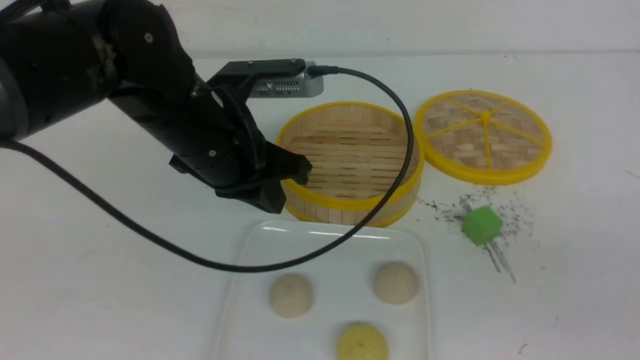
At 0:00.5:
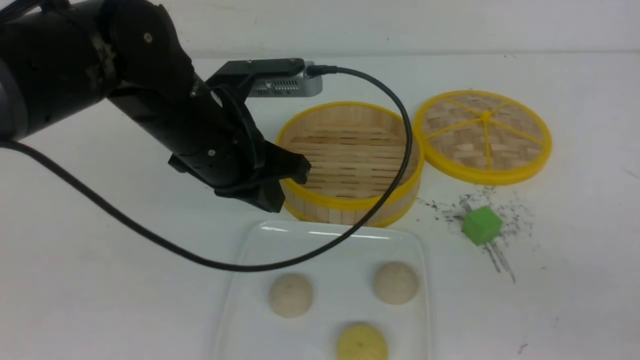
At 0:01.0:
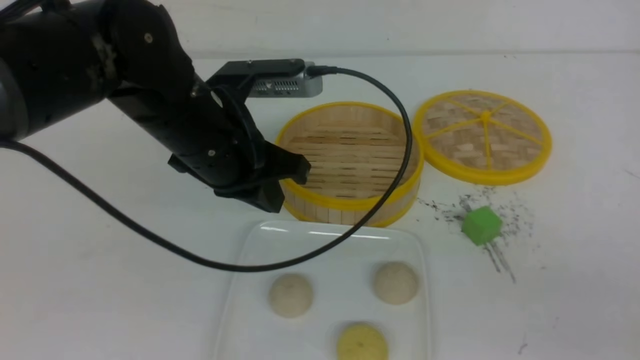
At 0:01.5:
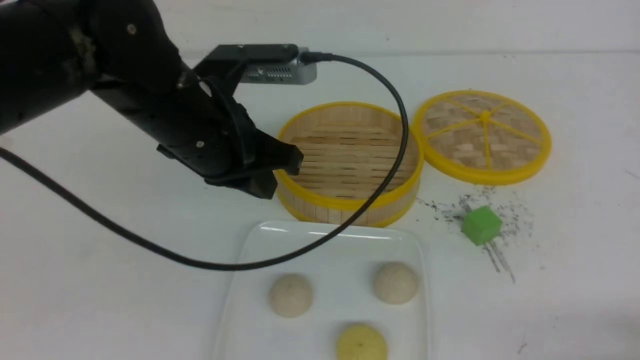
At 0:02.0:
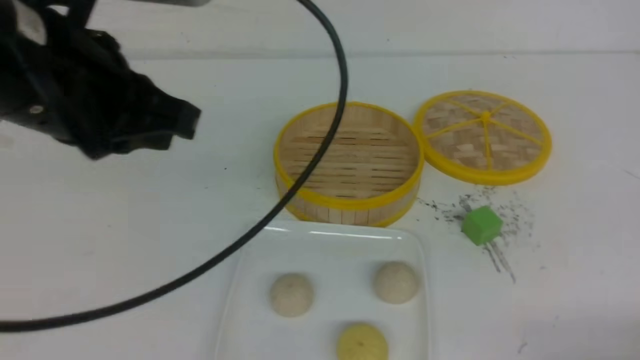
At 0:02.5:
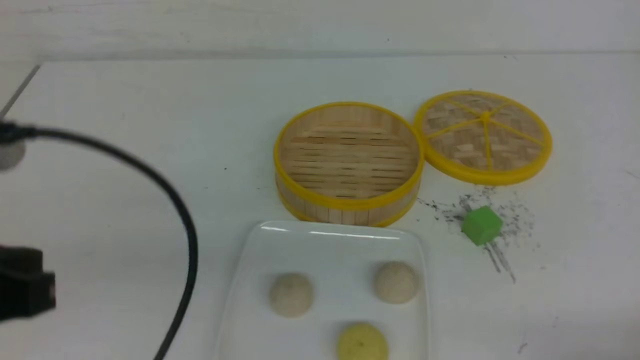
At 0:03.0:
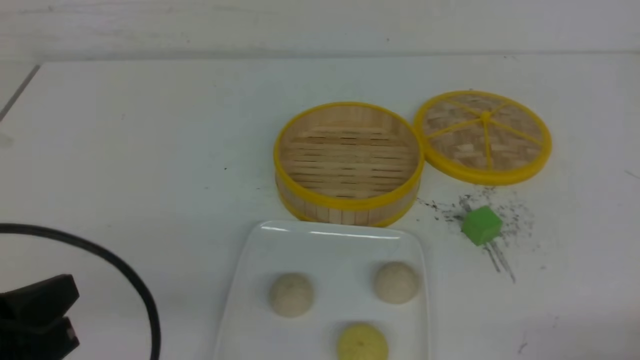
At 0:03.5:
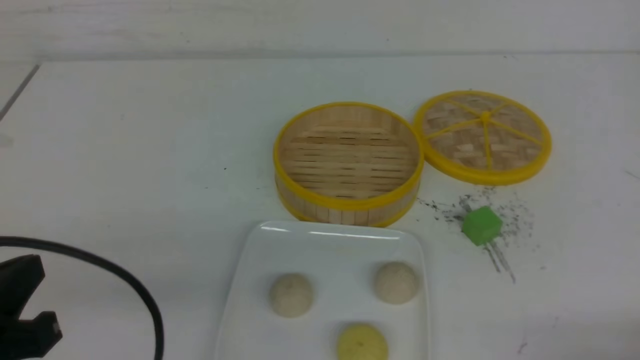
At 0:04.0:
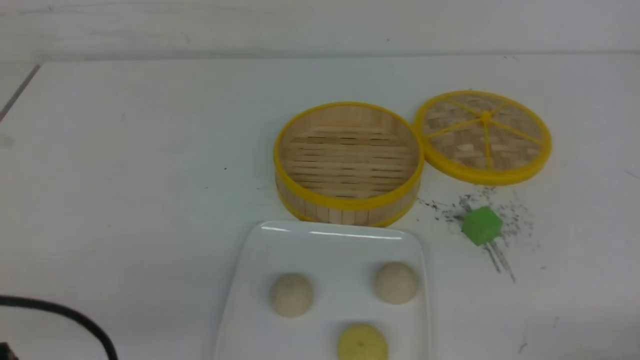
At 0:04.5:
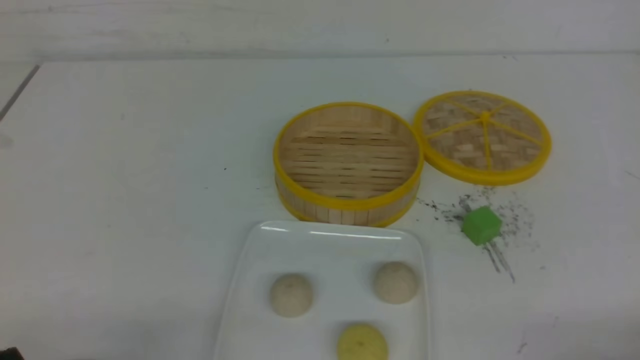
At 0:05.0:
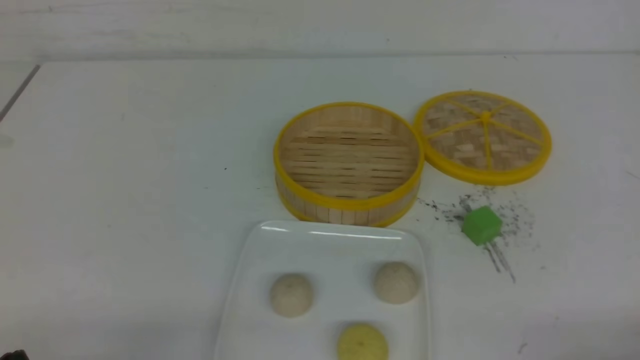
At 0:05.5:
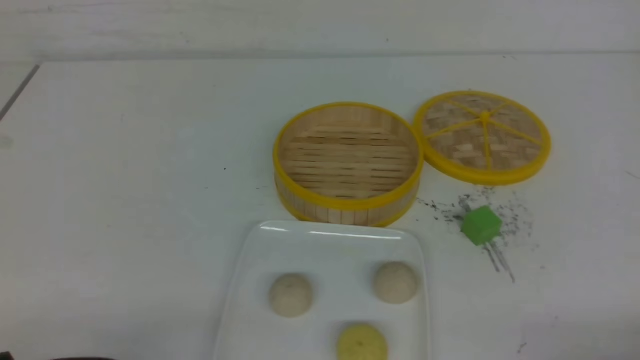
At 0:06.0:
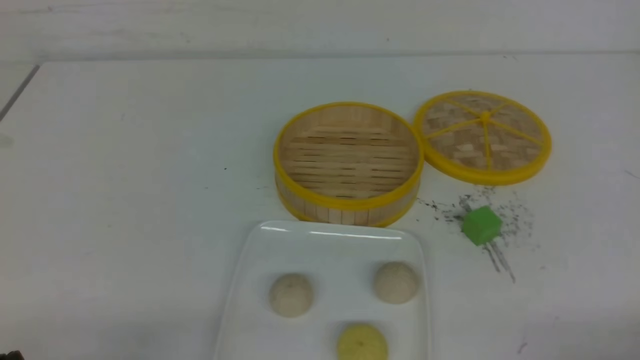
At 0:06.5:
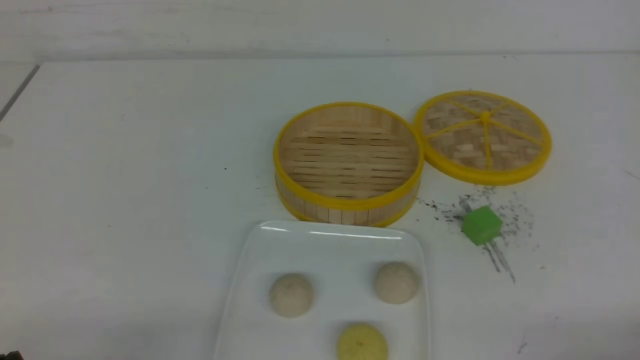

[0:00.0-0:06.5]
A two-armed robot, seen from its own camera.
0:00.0 to 0:02.0: The left gripper is displaced upward, backward and to the left by some 15 cm, while the right gripper is displaced downward by about 15 cm.
0:02.0 to 0:04.5: The left gripper goes approximately 30 cm downward, backward and to the left.
0:04.5 to 0:06.5: The two grippers keep their place.
